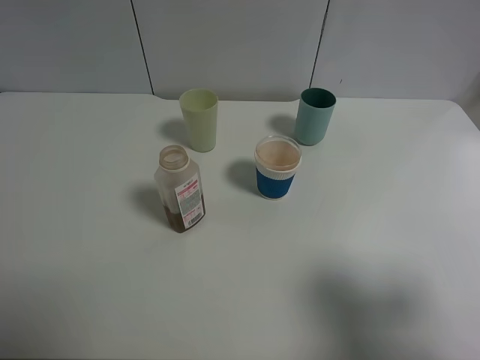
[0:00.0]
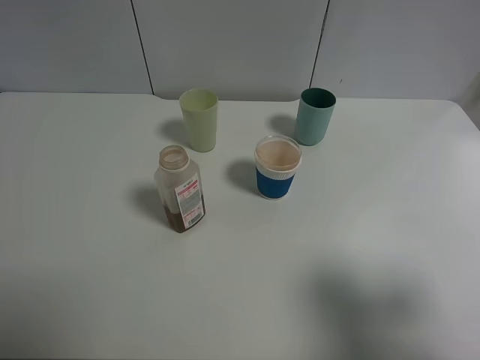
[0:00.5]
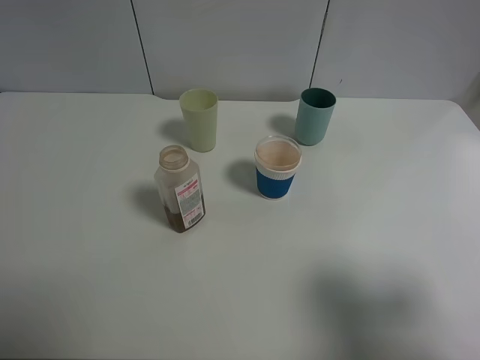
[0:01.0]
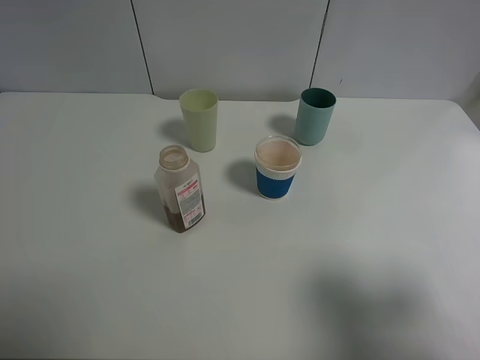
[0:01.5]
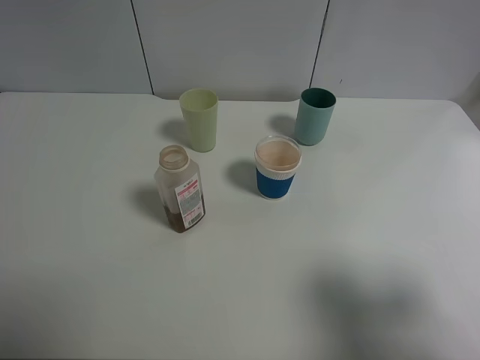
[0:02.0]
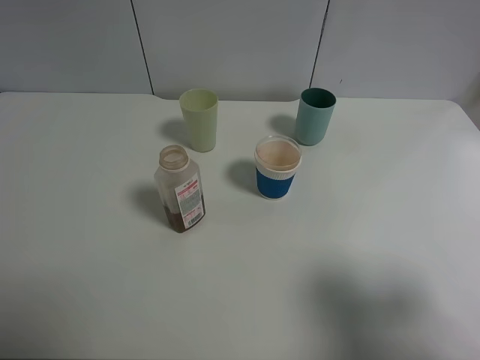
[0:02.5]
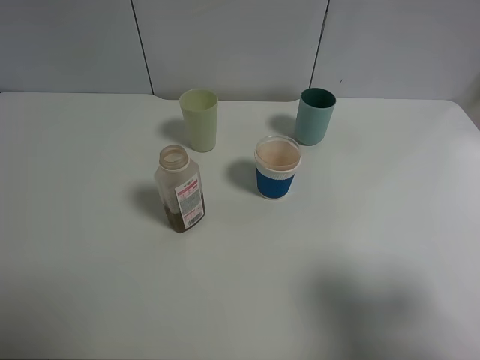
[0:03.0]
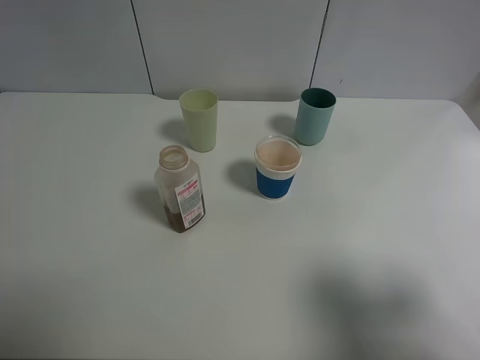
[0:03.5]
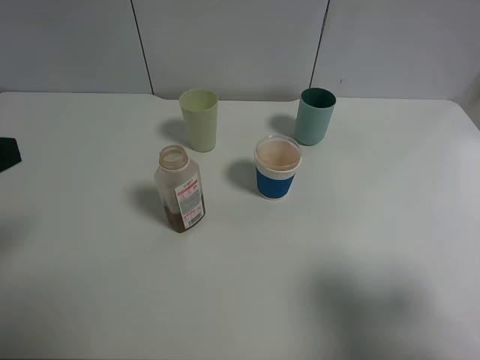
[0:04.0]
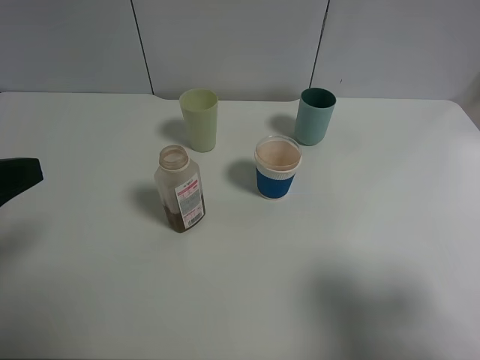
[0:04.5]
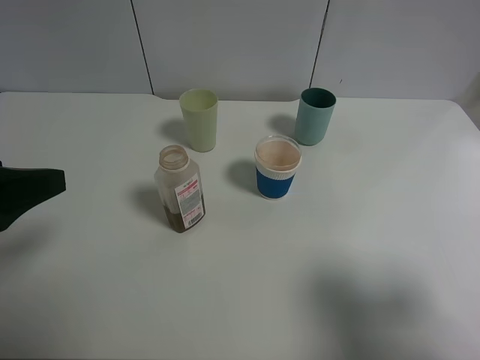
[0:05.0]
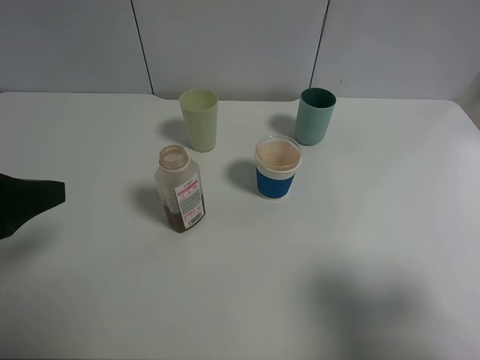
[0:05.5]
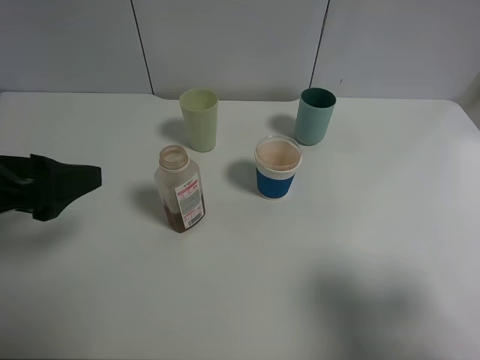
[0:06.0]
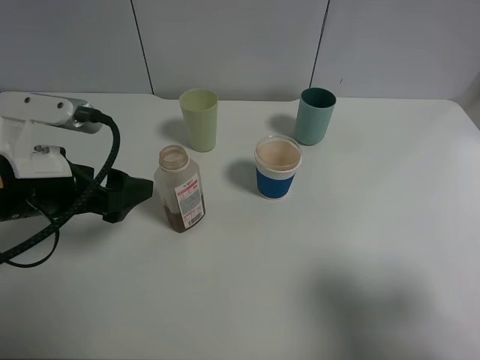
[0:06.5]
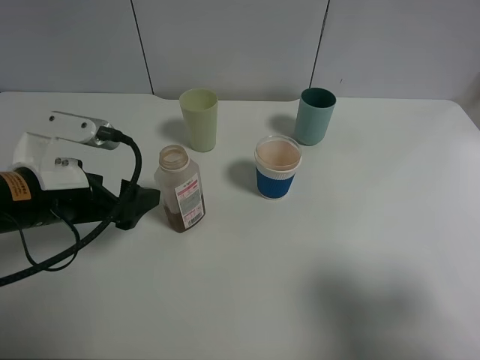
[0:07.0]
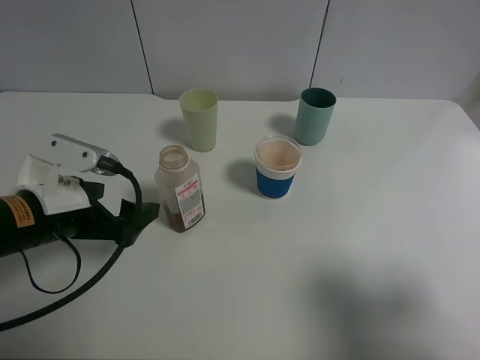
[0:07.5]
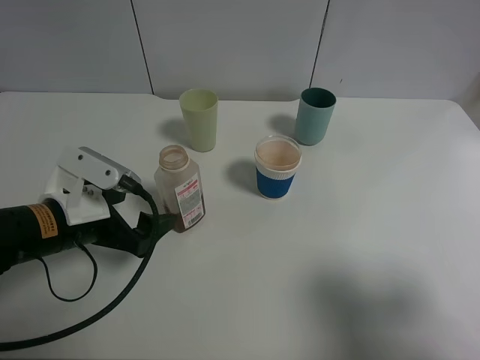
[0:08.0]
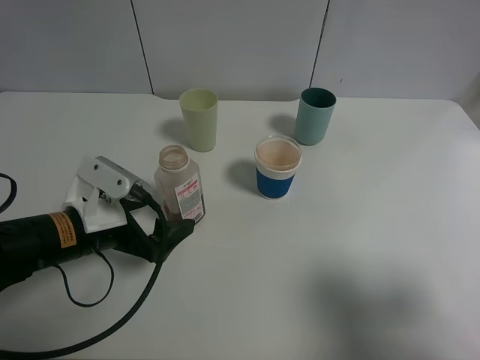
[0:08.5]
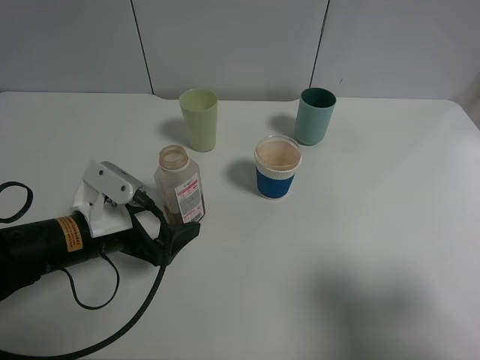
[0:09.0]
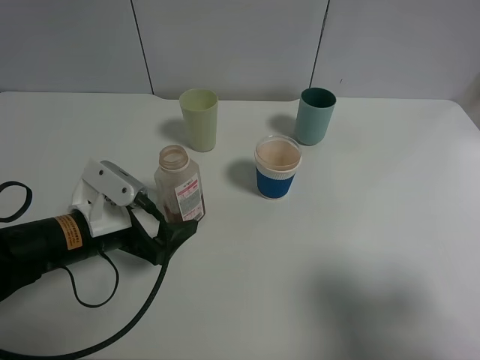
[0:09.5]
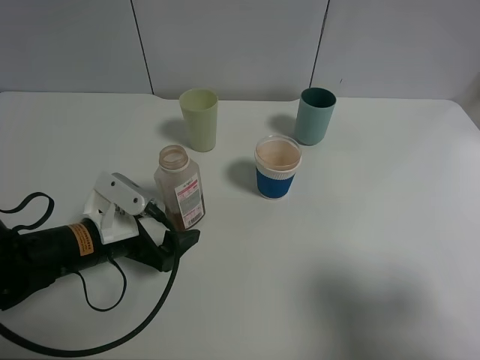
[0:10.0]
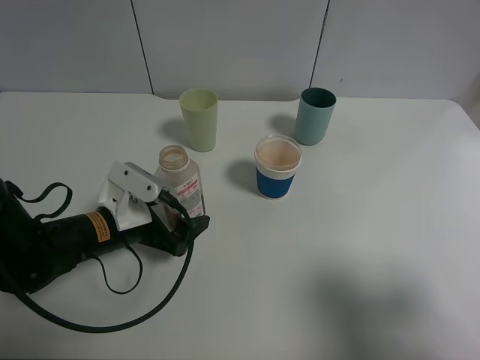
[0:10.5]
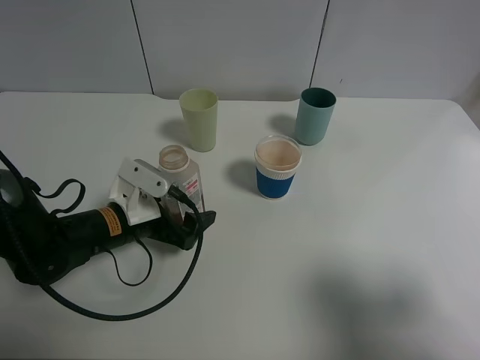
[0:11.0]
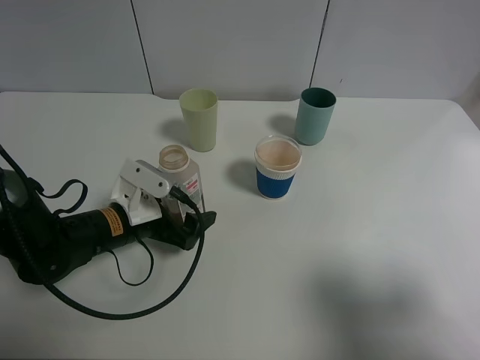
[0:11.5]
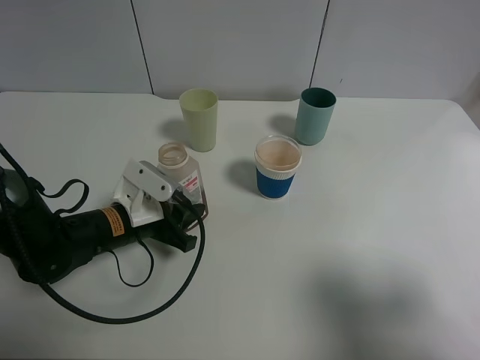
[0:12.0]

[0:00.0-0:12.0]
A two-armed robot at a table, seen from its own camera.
Task of the whole recording: use a clamp to hold the bottle of the drink, pour the beverage into a random cup, then clamp the cup containing the drink and pour the drink into another random cup.
0:00.0 to 0:02.0: The two grippers keep their place.
0:04.0 to 0:06.0: The left gripper changes place by approximately 5 cm.
0:06.0 to 0:08.0: The left gripper moves downward, roughly 10 cm.
0:08.0 to 0:10.0: The left gripper is displaced downward by approximately 5 cm.
0:10.0 to 0:12.0: The left gripper closes its fingers.

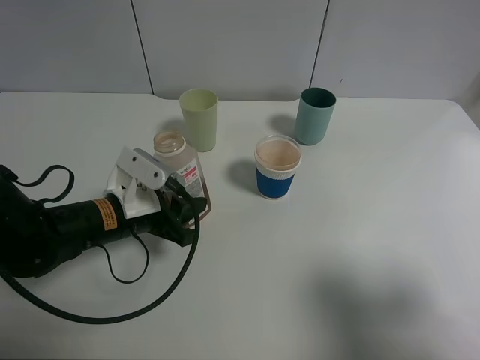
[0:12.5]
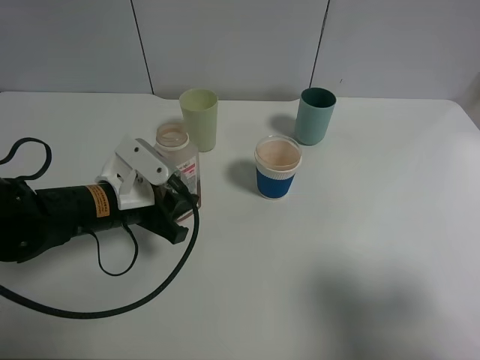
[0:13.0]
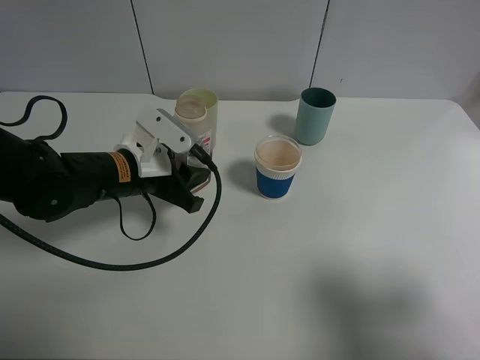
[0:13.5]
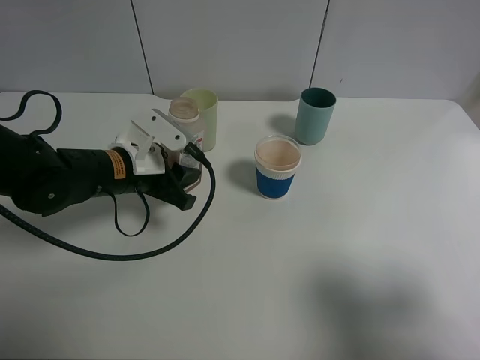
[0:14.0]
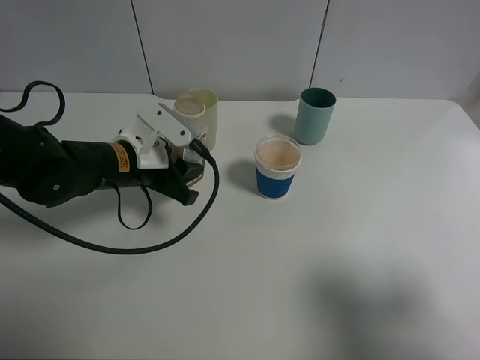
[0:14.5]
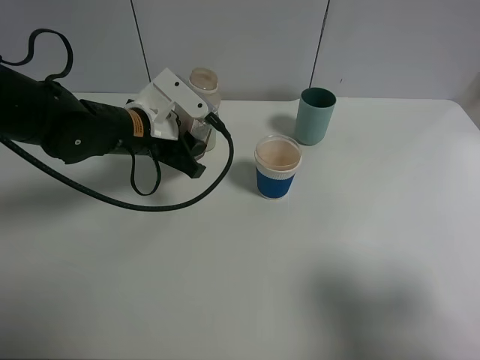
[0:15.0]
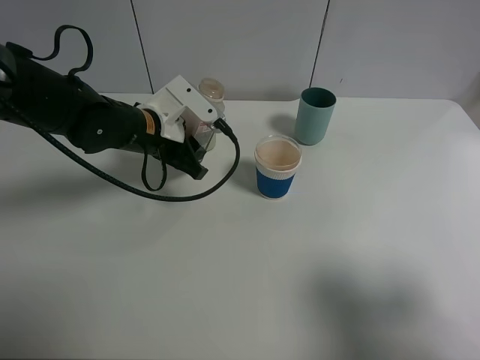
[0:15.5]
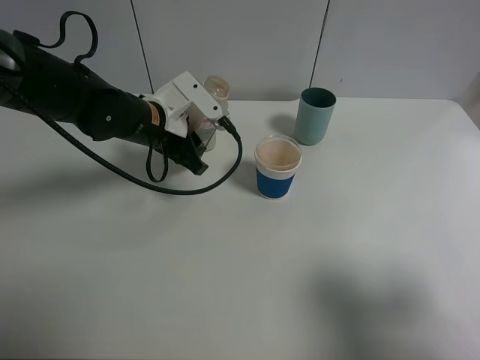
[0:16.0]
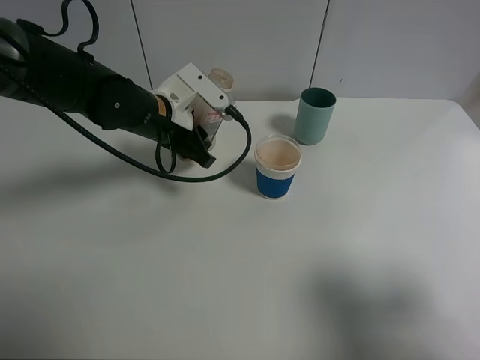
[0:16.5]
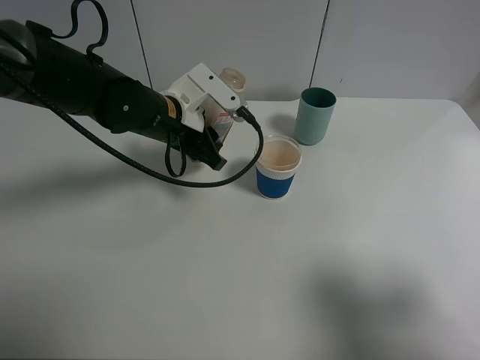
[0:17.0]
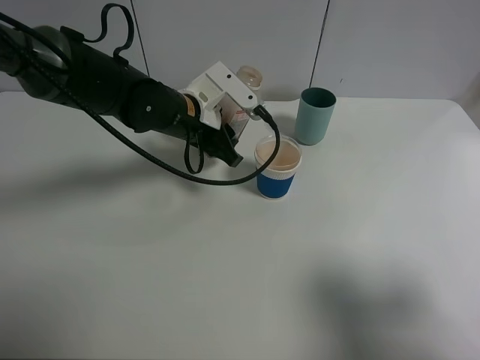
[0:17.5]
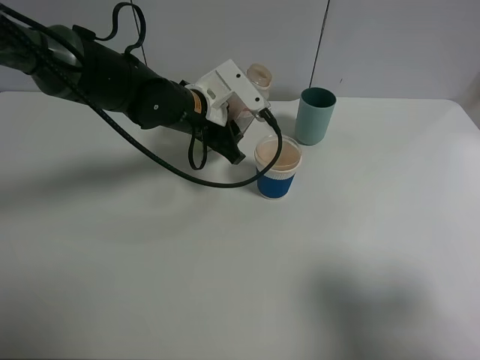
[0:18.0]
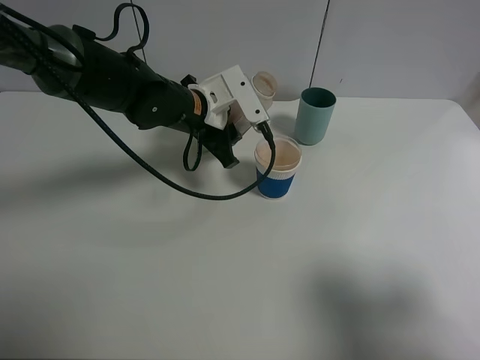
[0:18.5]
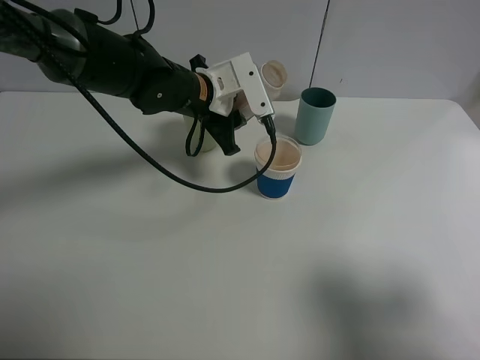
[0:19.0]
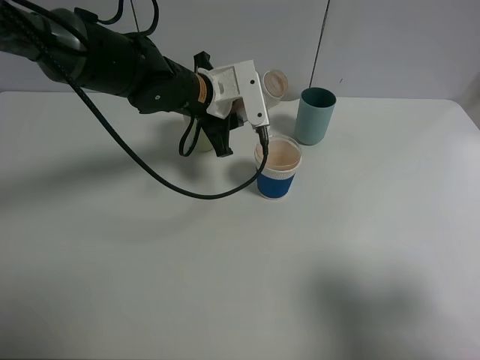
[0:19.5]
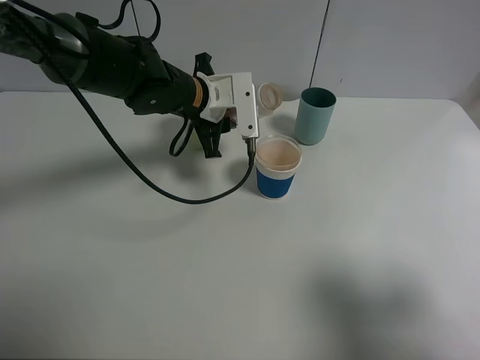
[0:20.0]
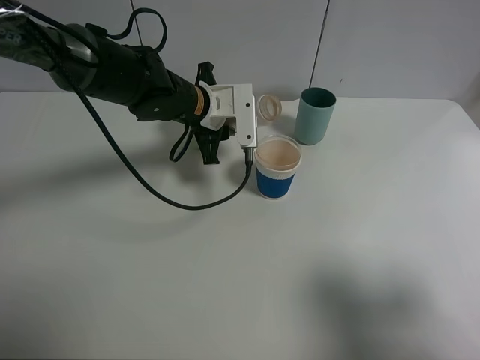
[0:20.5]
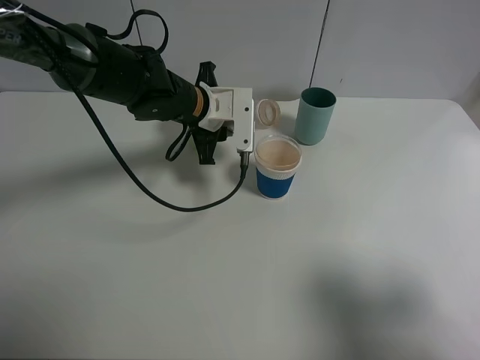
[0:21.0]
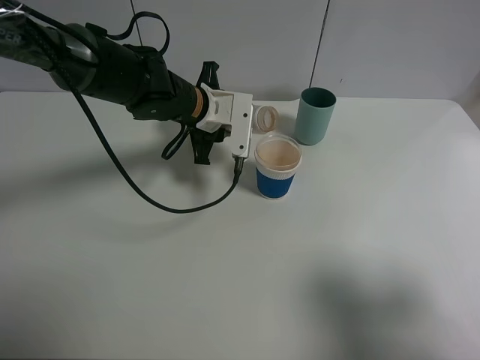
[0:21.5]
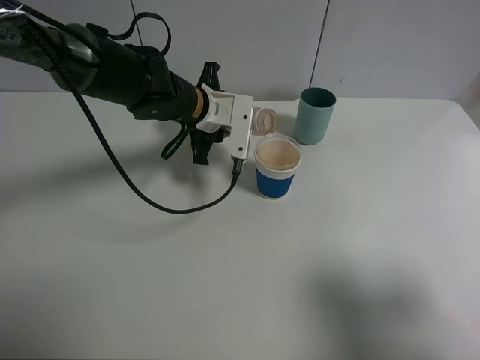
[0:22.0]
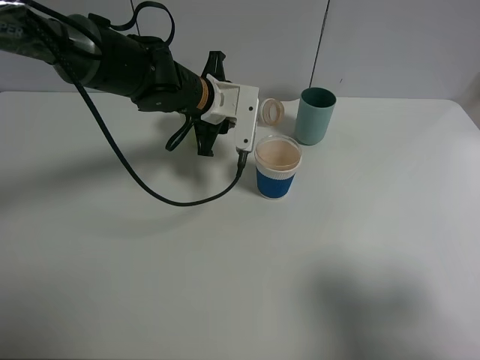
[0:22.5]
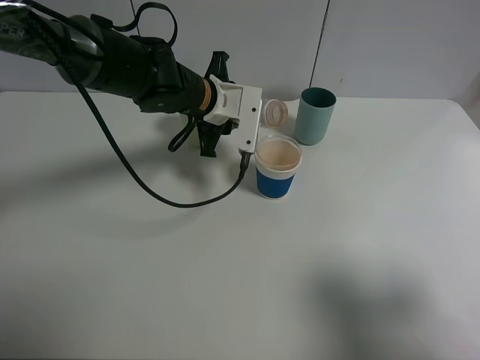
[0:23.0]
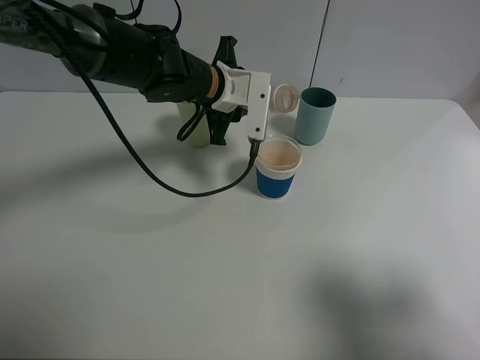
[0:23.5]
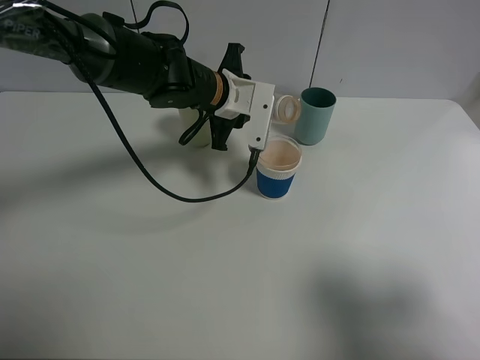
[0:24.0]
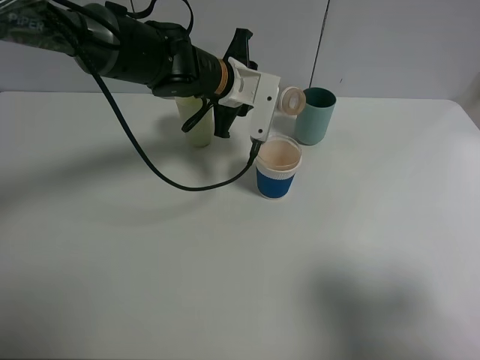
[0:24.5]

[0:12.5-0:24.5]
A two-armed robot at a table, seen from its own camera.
Task of the whole recording: use a clamp to hold the bottle of the drink, pour the beverage into a random cup, then clamp the cup containing the drink and pour the drink into another random cup.
Step, 0:12.5 to 0:15.5: Pick up the drink bottle with left gripper.
0:12.5 to 0:14.5: The left gripper goes roughly 5 cm forward.
0:14.5 to 0:16.5: The left gripper heads forward, covering approximately 5 cm.
0:16.5 to 0:18.5: There are only small adjustments of the grippers.
0:20.5 to 0:22.5: The grippers move only a little.
0:22.5 to 0:24.5: The grippers stay close to where they were, moving slightly.

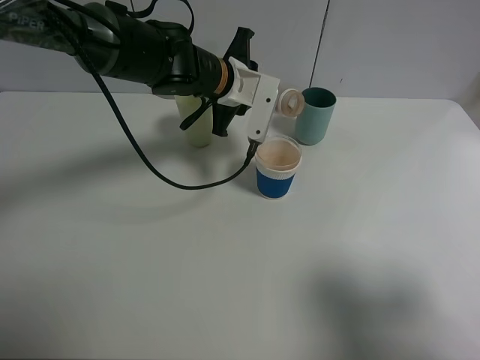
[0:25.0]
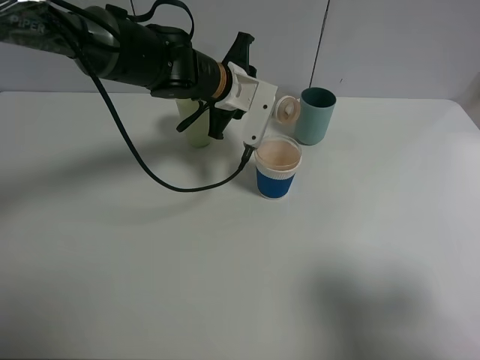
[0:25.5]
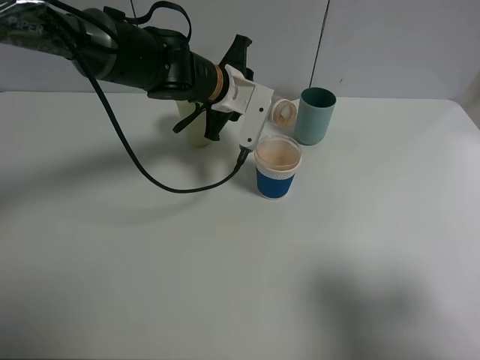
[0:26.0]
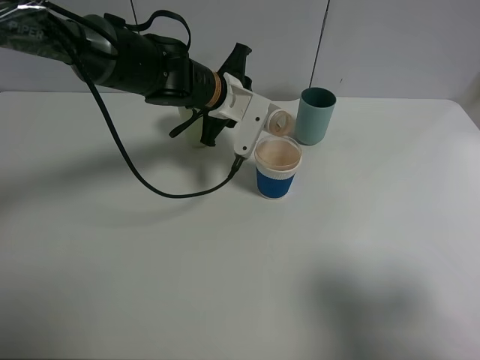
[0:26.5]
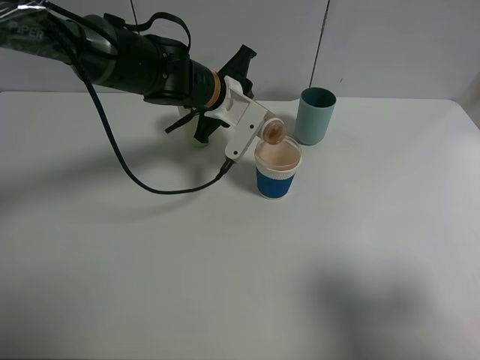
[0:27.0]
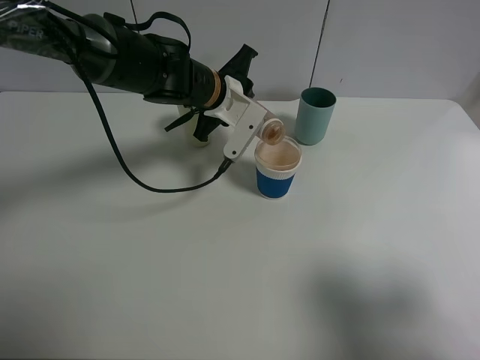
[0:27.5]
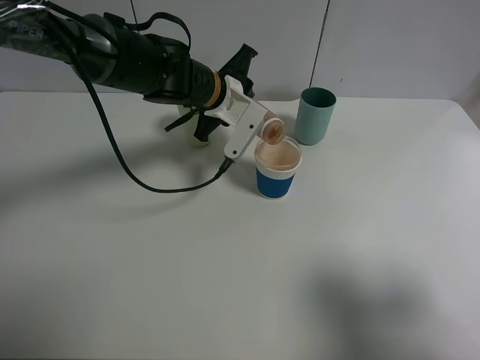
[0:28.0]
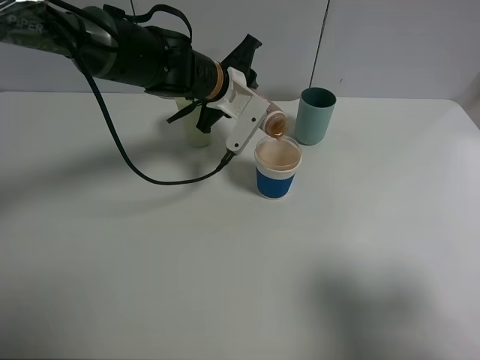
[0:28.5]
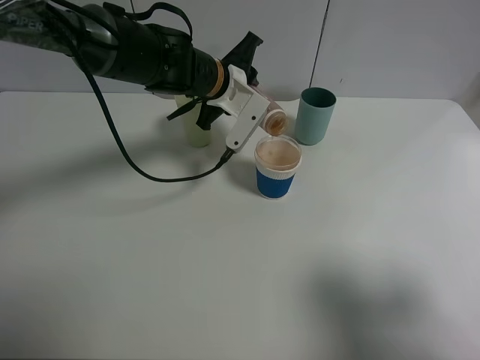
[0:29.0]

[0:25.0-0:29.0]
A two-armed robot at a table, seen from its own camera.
Task of the whole recording: use a clamp to hold the bottle of the drink, pour the beverage into a random cup, then clamp the cup containing the drink and pour the drink into another random cup.
0:25.0 to 0:29.0: The grippers stay close to where they were, moving slightly.
